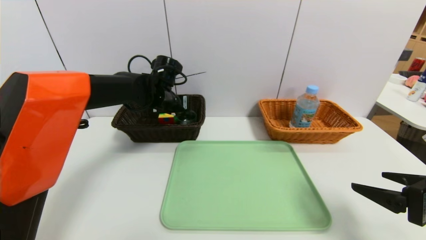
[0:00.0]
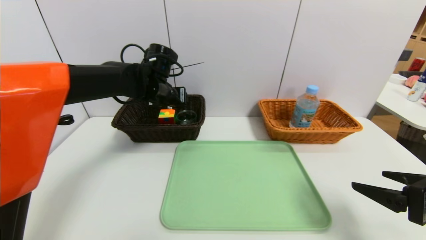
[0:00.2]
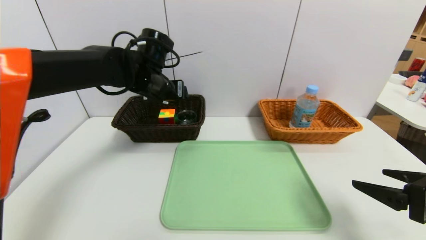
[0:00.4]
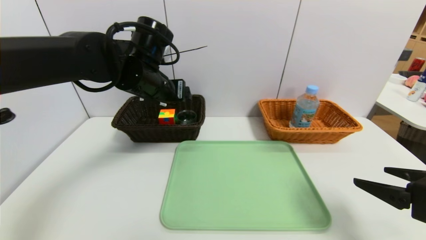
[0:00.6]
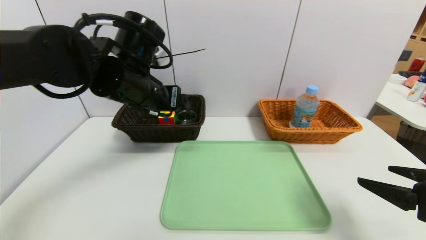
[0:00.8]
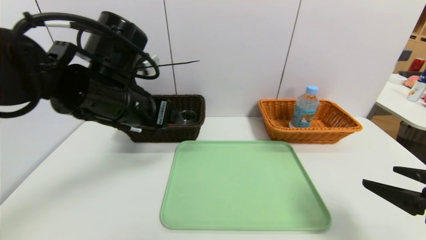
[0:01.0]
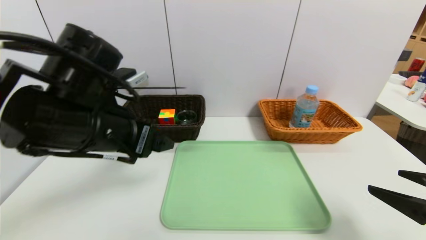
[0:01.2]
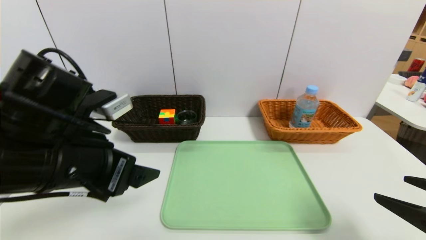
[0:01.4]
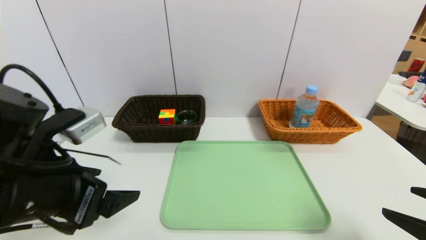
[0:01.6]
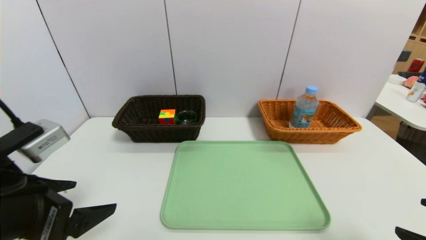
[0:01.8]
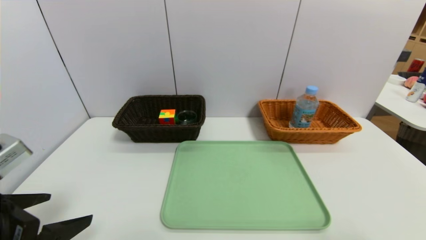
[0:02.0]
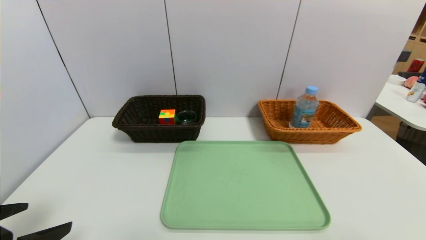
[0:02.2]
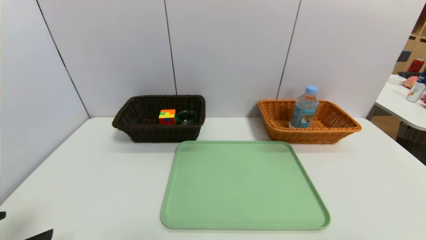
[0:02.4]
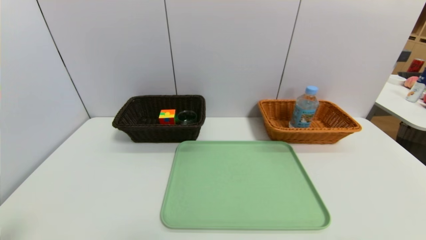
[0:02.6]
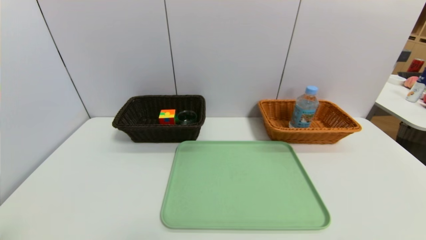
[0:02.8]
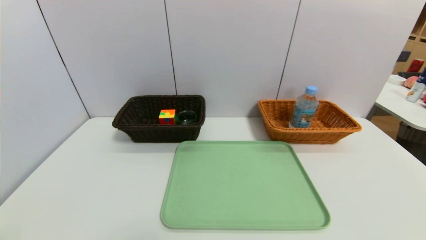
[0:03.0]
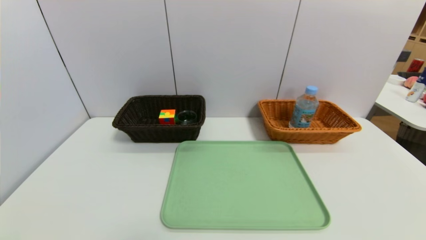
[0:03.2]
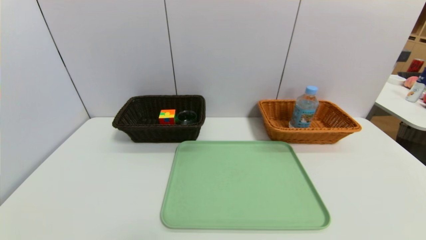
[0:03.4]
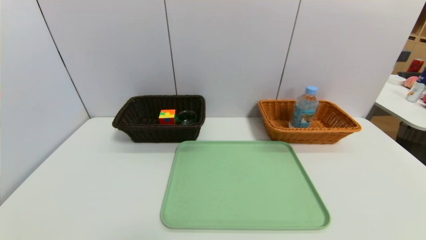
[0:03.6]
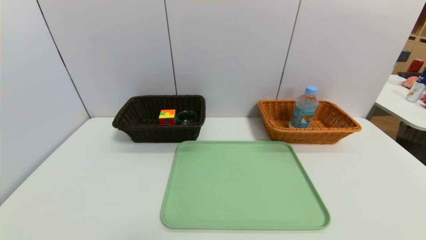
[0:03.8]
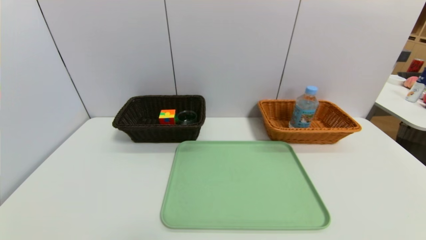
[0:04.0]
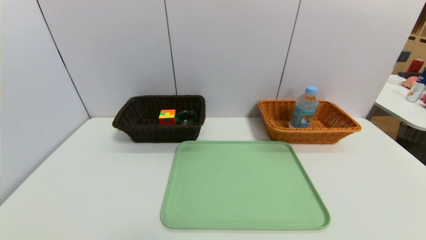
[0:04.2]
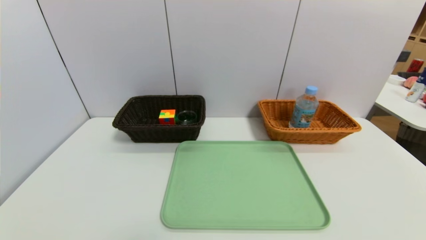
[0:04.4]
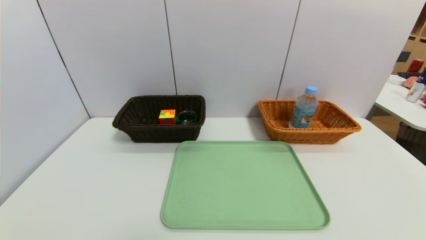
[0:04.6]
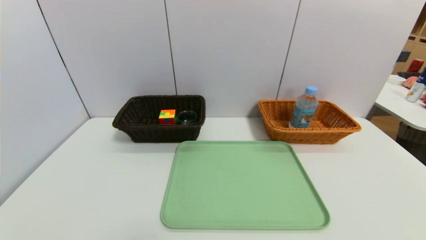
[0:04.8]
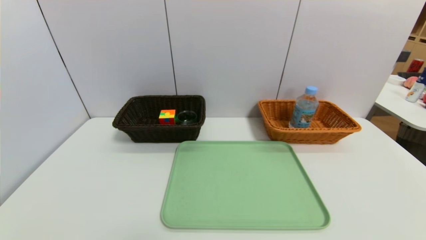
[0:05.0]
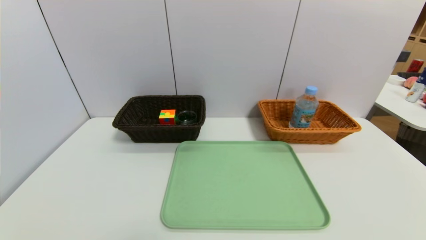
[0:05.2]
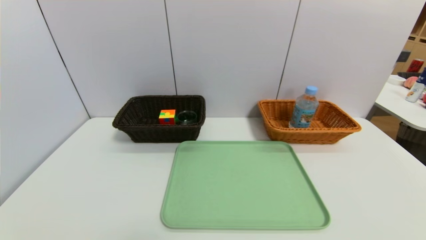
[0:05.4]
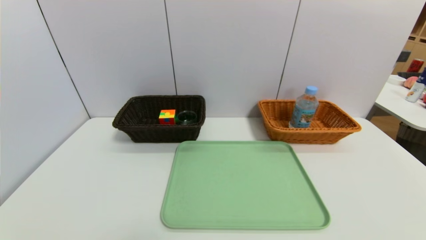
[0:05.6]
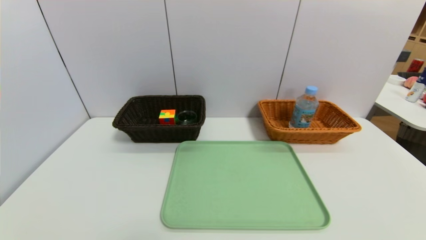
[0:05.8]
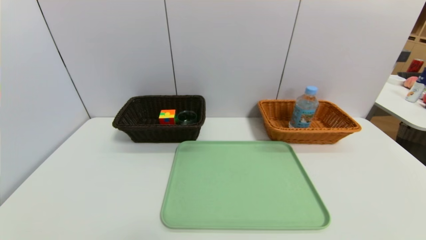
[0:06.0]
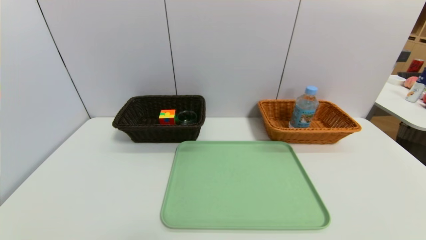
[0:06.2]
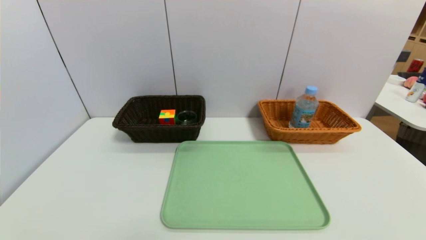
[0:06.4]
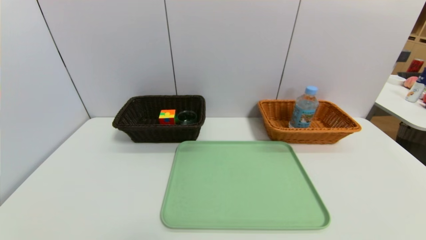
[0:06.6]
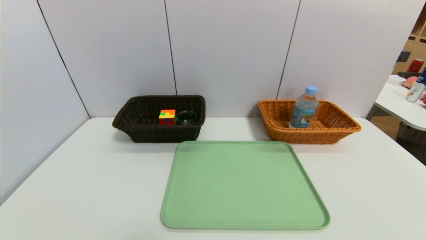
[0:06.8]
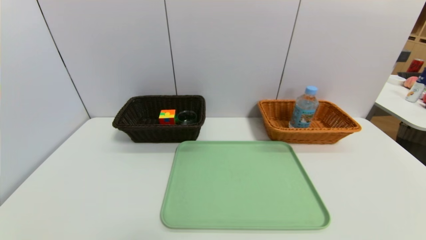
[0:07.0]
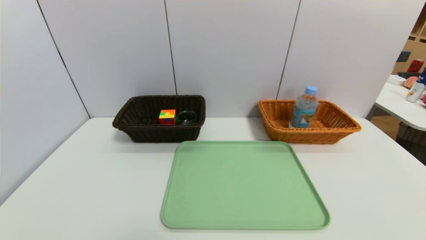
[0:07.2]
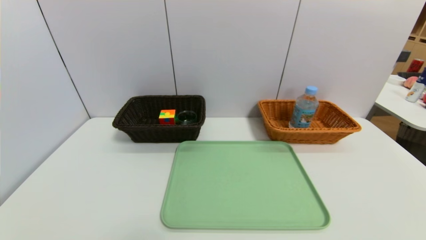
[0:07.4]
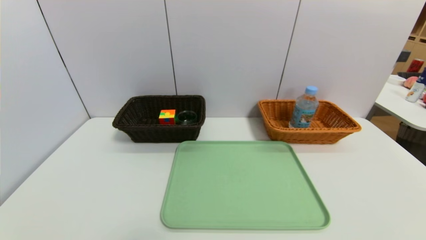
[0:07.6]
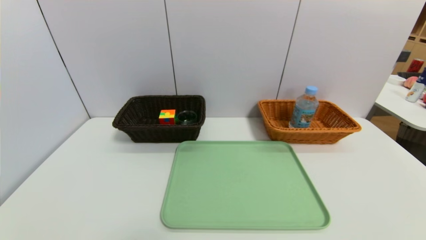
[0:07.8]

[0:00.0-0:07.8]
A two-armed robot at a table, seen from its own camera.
Task of the whole recording: place the food in the right basket with the right gripper, and place the non food items in the left basket with the left gripper.
0:00.0 to 0:01.6: The left gripper shifts approximately 30 cm backward. The right gripper heads backward, covering roughly 5 cm.
0:01.6 to 0:03.2: The left gripper is displaced backward, to the left and downward by approximately 20 cm; the right gripper moves backward, about 10 cm.
0:06.2 to 0:07.8: Both grippers stay about where they are.
